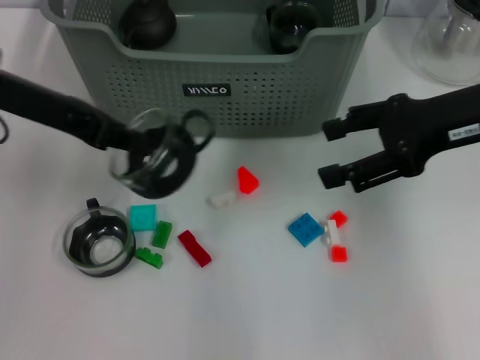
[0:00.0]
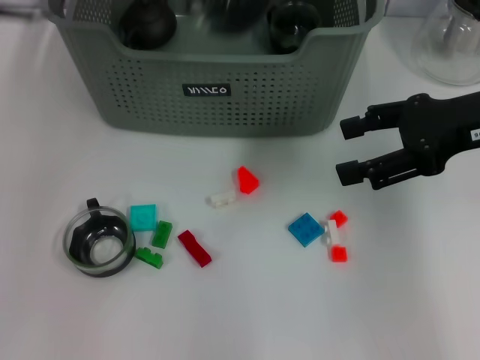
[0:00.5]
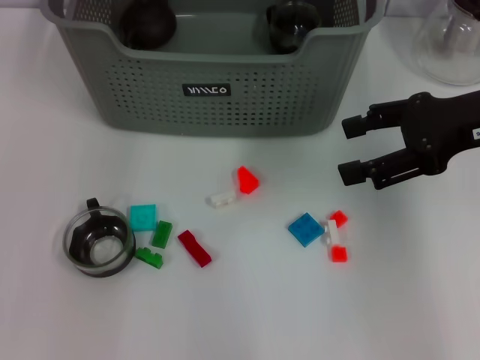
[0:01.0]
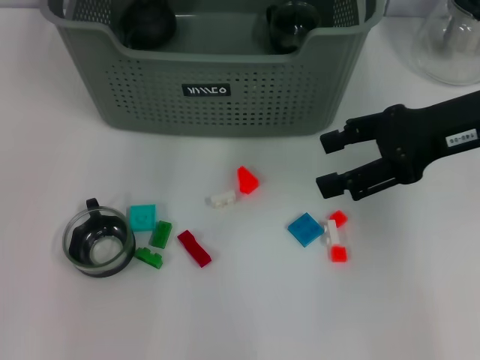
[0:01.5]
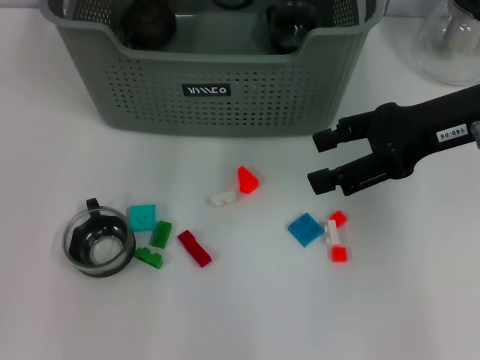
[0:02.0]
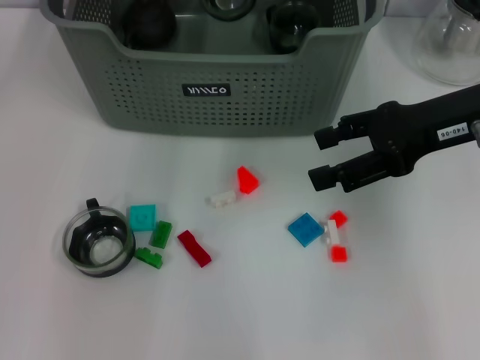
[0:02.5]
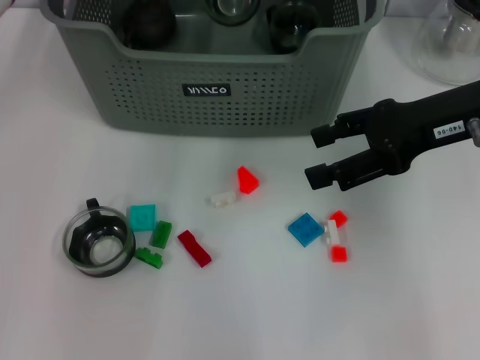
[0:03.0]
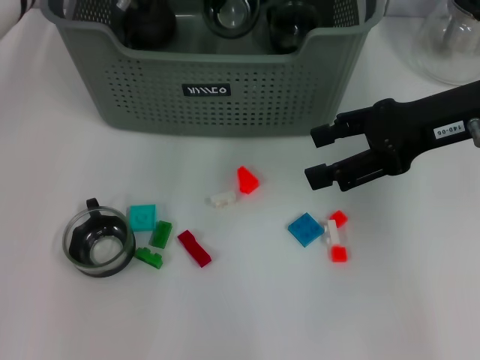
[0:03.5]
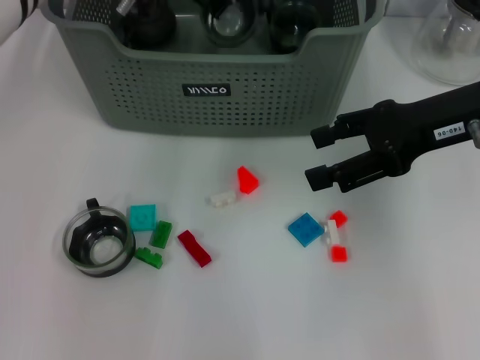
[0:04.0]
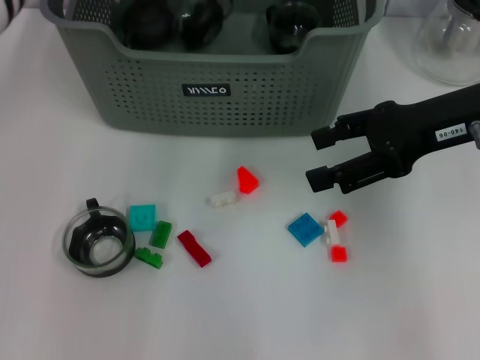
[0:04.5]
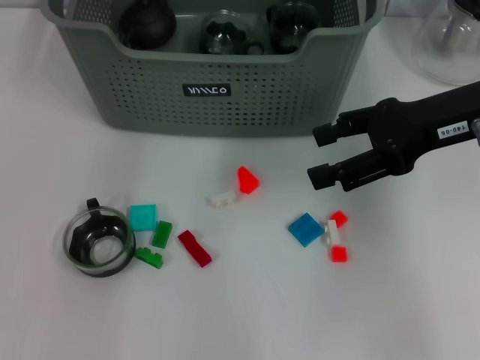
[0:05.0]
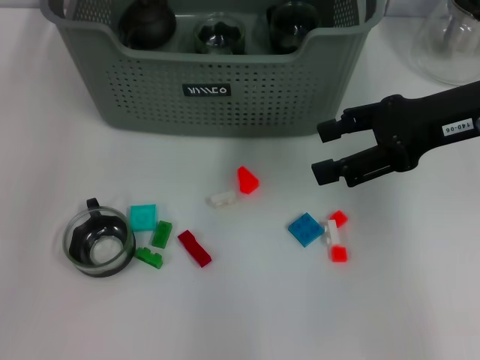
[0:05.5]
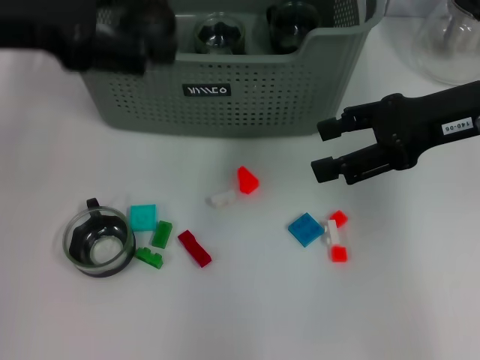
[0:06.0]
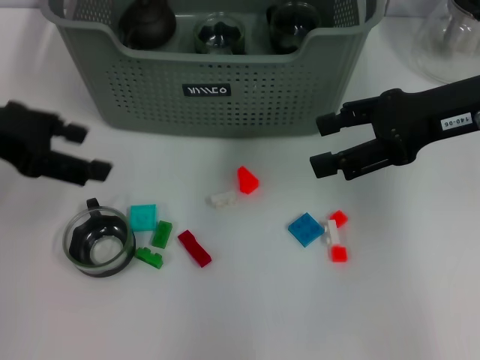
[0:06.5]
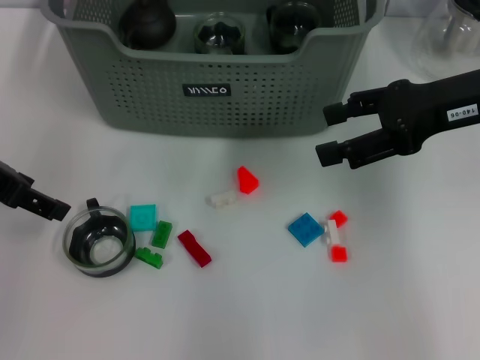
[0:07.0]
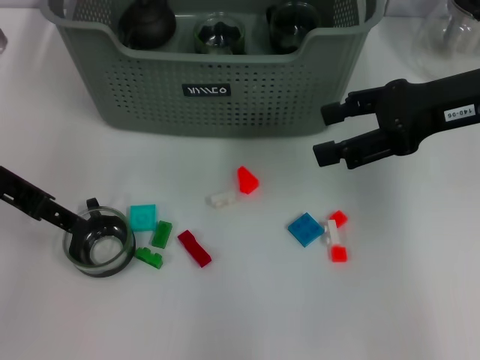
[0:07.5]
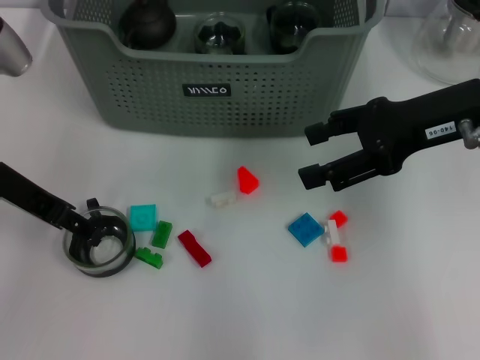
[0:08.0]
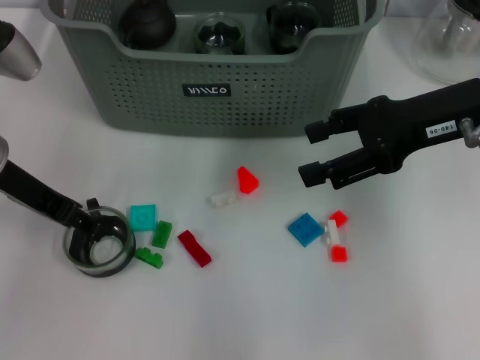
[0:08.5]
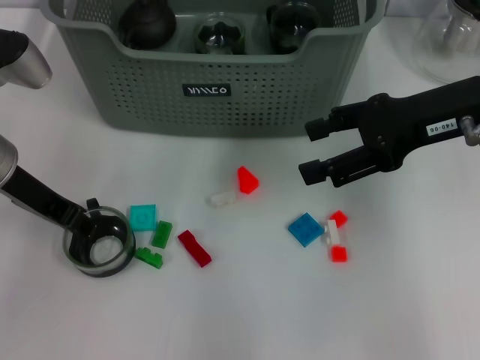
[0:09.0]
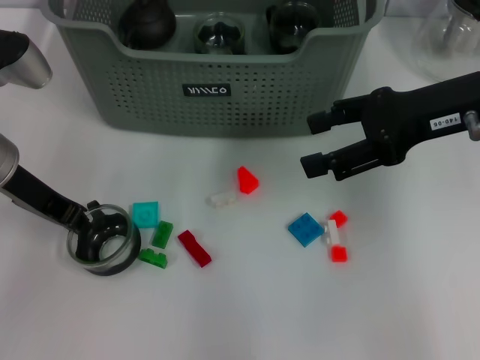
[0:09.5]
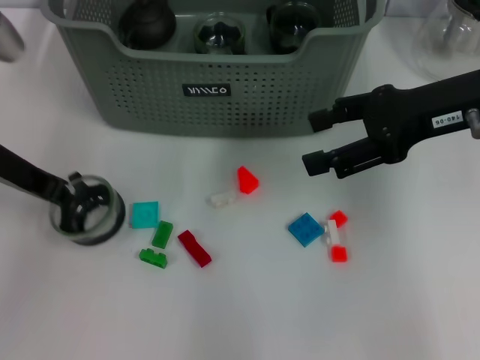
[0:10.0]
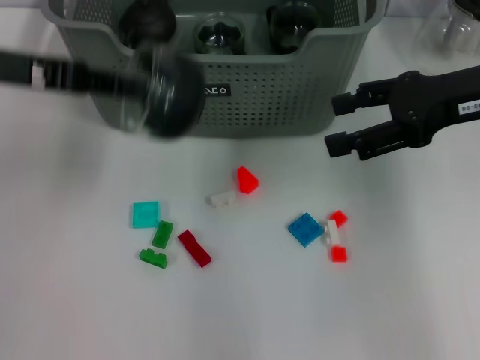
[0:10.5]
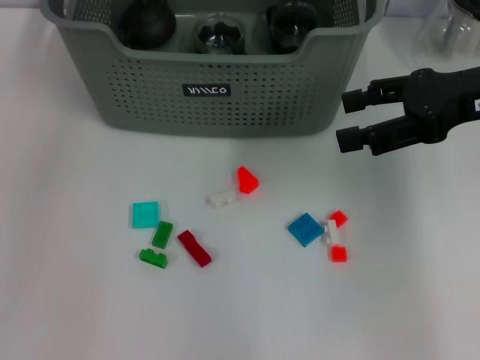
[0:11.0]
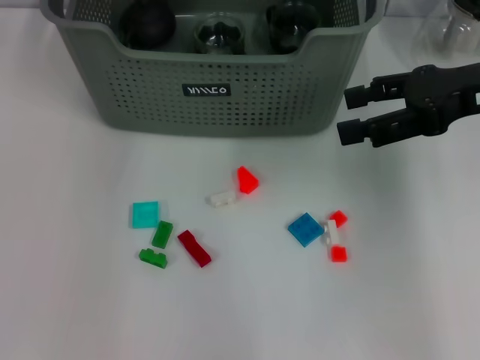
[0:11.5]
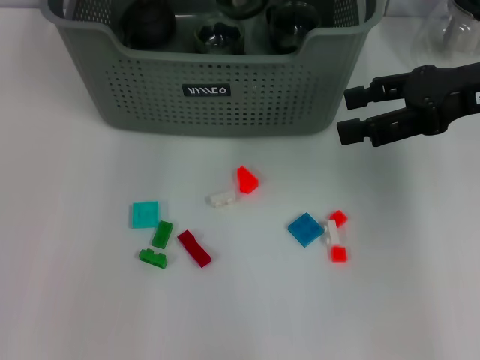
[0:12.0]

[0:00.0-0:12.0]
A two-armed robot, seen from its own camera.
Task of the whole recording: pick up the teacup on the table and place it into the storage bin, pick up the block on the table and place it into the storage bin.
Step, 0:00.0 to 0:04.5: Place the cup in the storage box with left gripper.
Step, 0:05.0 to 0:09.0: Grasp the cup with left gripper.
0:00.0 to 0:02.0: The left gripper heads forward and to the right, covering approximately 20 cm.
0:02.0 to 0:04.0: The left gripper travels downward by approximately 5 cm.
0:04.0 to 0:06.0: The left gripper travels to the left, backward and upward by about 25 cm, and opens up.
0:06.0 to 0:08.0: The left gripper moves downward, some 10 cm.
0:08.0 to 0:10.0: The left gripper closes up.
0:10.0 to 0:12.0: The left gripper travels forward and to the right by some 20 cm.

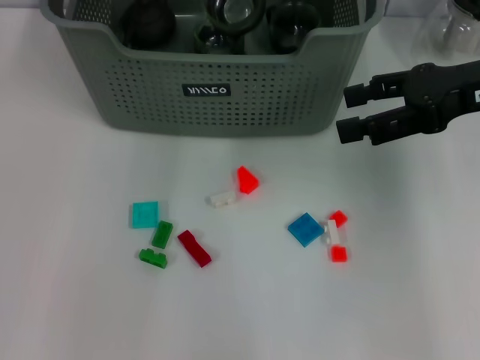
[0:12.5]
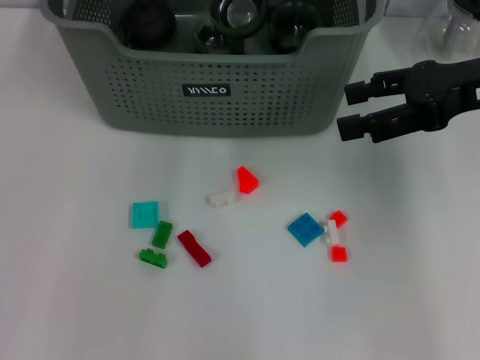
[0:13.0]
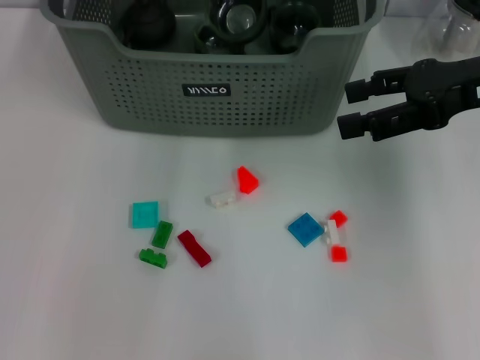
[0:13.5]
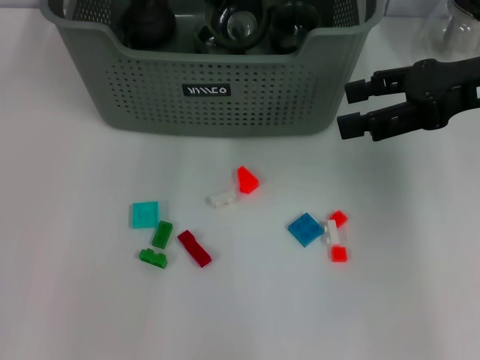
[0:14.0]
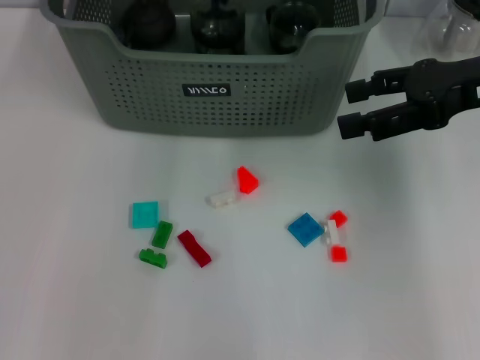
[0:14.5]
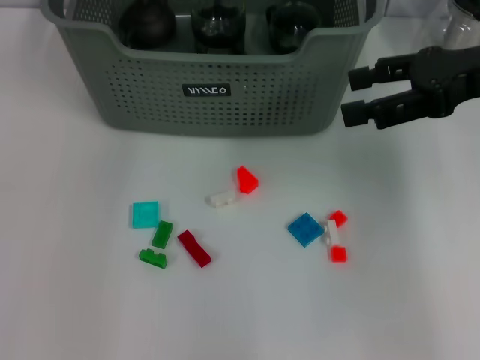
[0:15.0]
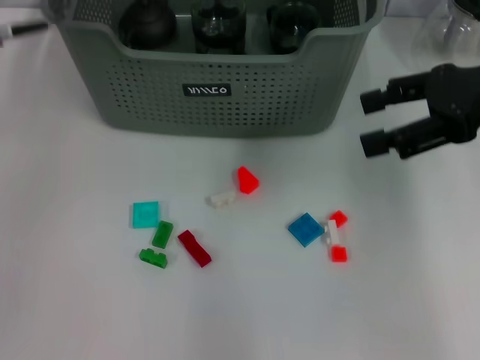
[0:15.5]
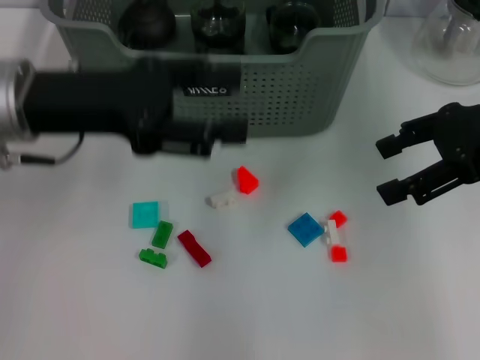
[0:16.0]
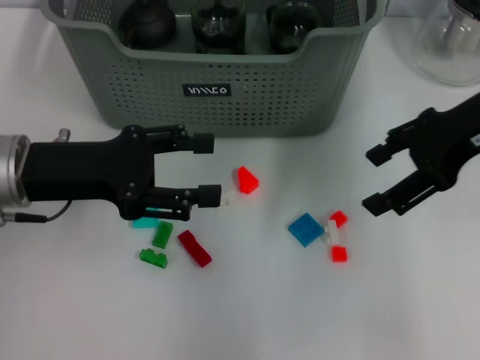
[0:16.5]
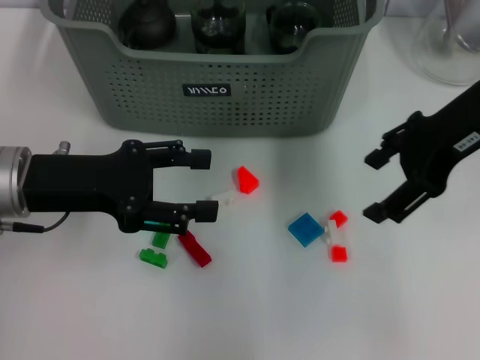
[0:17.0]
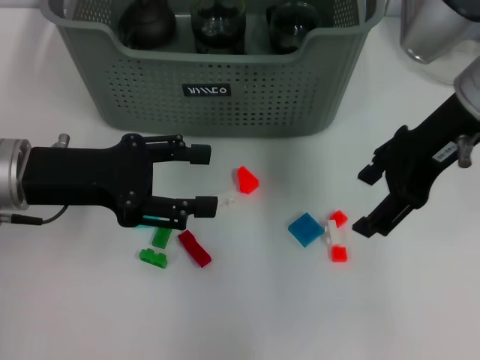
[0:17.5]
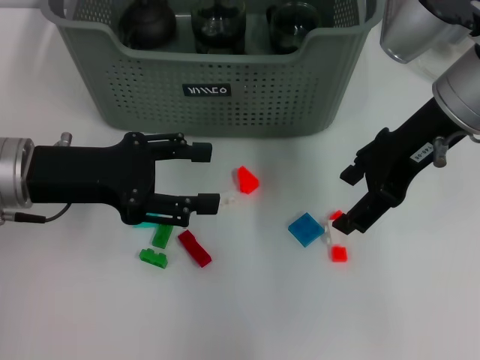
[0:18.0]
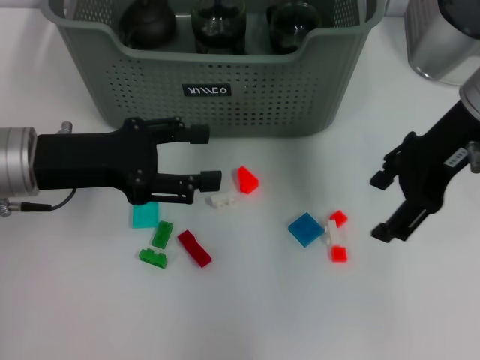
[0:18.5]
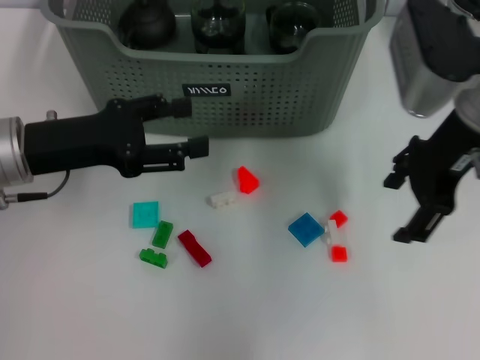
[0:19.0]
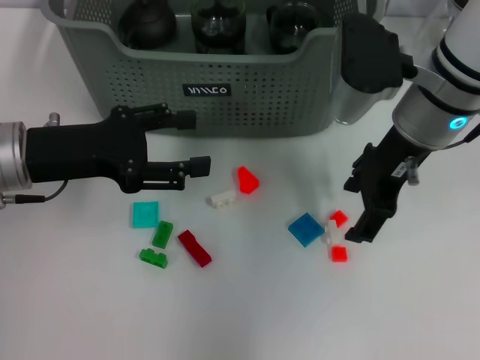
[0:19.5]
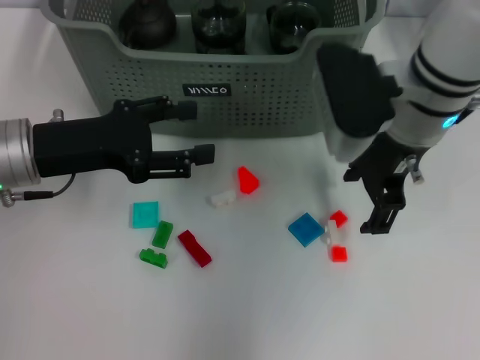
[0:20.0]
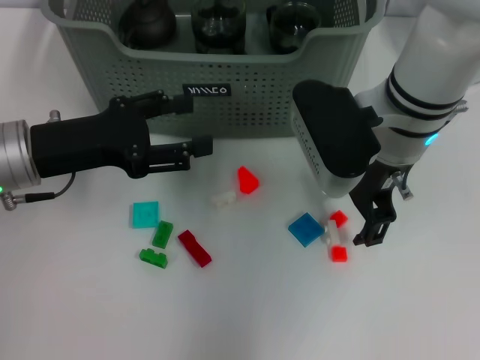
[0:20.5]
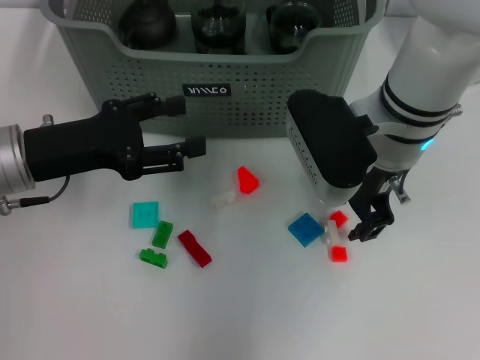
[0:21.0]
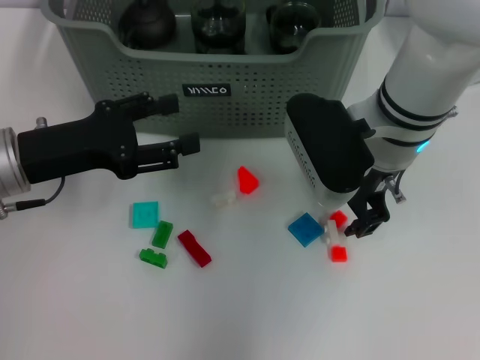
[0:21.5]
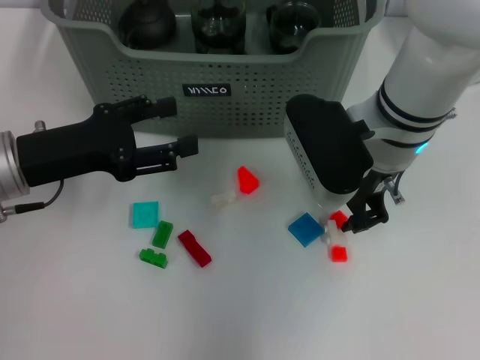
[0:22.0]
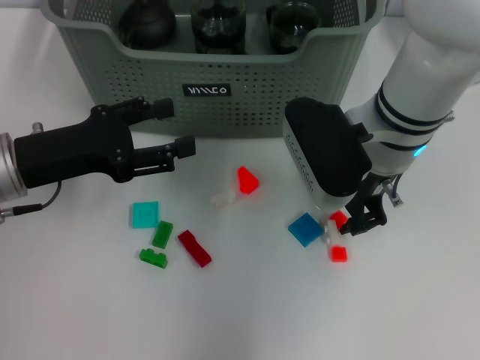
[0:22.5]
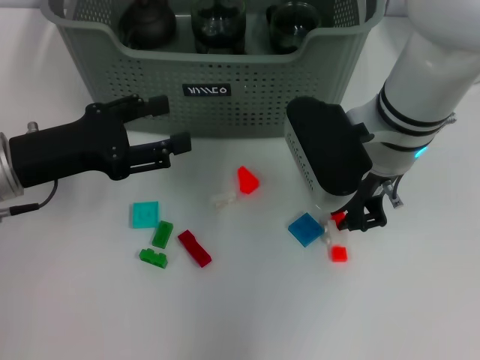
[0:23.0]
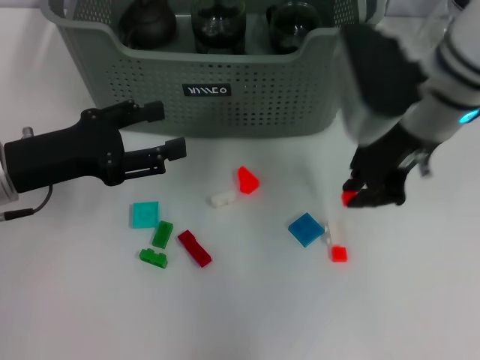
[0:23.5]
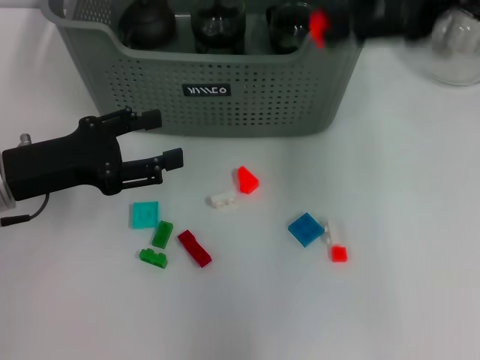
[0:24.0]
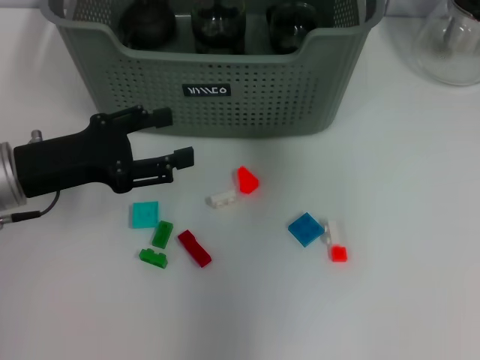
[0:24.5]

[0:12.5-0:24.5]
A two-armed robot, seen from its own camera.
Task of the whole recording: pick up the teacup on the table and place it into the storage bin, pick up the block on the table and place it into the storage bin.
Step, 0:12.5 to 0:14.5: Place the cup in the storage box with left gripper.
Step, 0:15.0 to 0:23.0: Grasp the orange block with right gripper.
0:12.5 to 0:14.5: The grippers stay close to where they were, moving slightly.
0:14.5 to 0:16.5: The left gripper shifts some 25 cm backward, to the left and downward, and opens.
0:16.5 to 0:18.5: The grippers move only a little.
0:18.5 to 0:20.5: The right gripper travels to the left and downward by approximately 10 cm.
0:20.5 to 0:22.5: The right gripper closes up.
0:22.5 to 0:24.5: The right gripper moves upward and forward, approximately 25 cm.

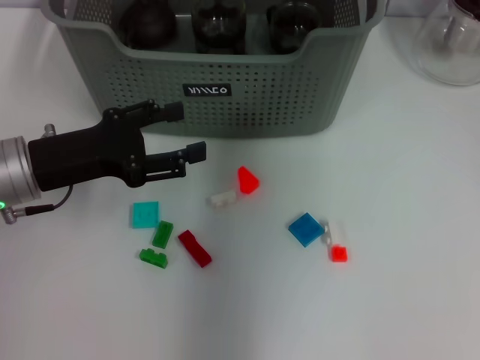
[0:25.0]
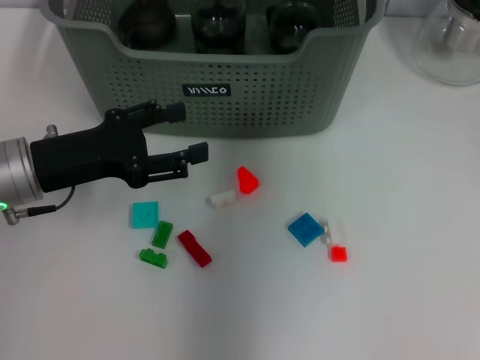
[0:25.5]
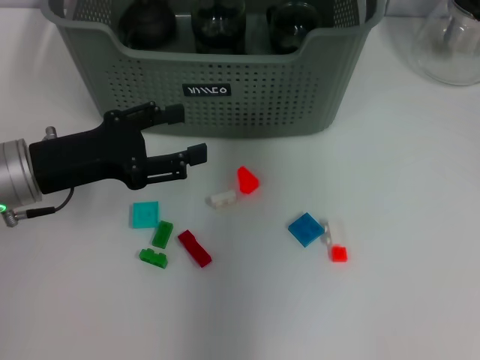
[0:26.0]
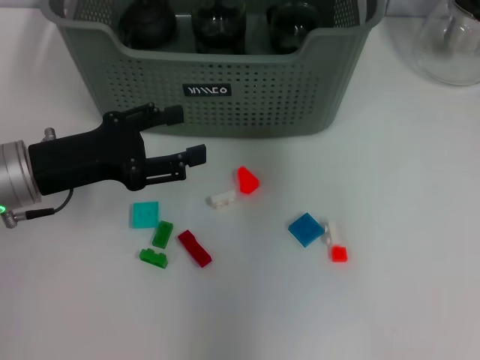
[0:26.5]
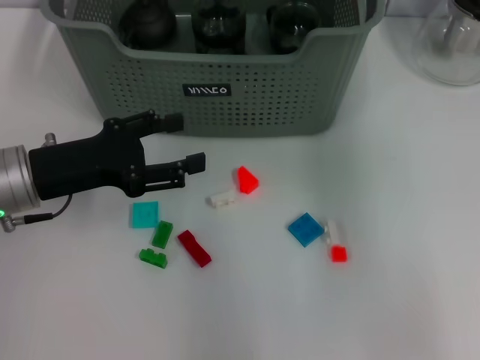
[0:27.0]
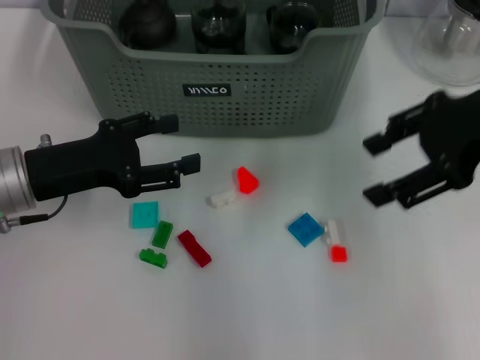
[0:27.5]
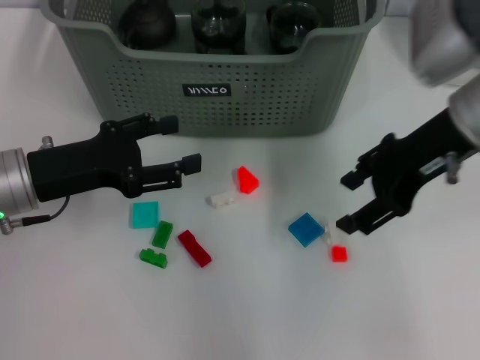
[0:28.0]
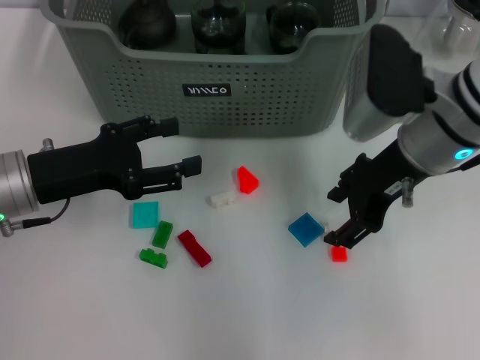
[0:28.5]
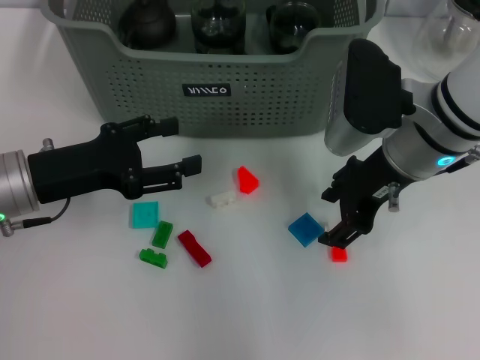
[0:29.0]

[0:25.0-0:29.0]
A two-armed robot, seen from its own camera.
Task of the whole recording: pick up the teacup on the table and place it into the storage bin, pick up the block on the table and place it into the storage bin.
0:25.0 to 0:27.0: The right gripper is displaced backward and to the right by some 15 cm, and opens its fingers.
0:27.0 to 0:29.0: The right gripper travels downward and to the left by some 20 cm.
